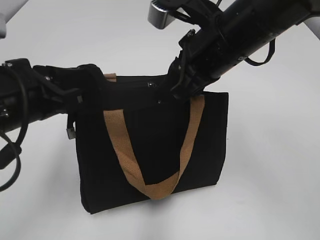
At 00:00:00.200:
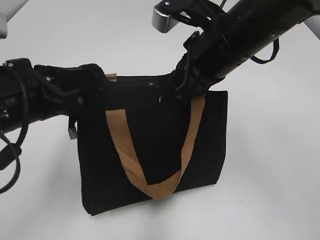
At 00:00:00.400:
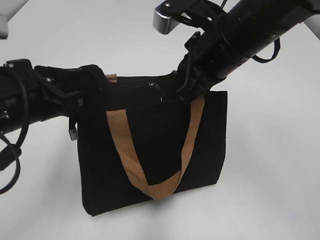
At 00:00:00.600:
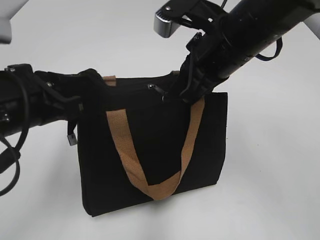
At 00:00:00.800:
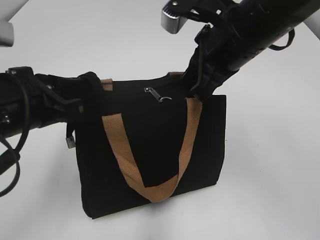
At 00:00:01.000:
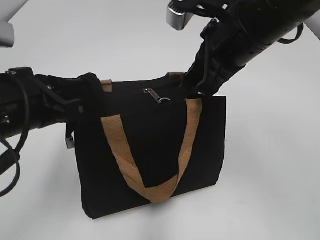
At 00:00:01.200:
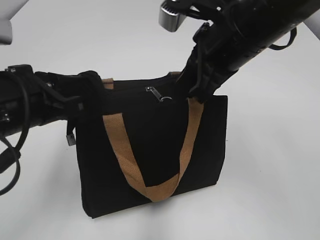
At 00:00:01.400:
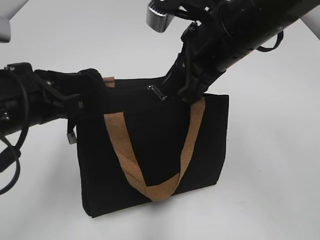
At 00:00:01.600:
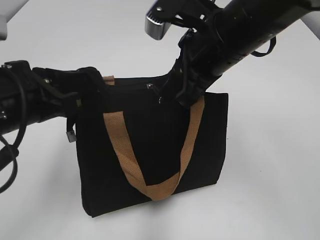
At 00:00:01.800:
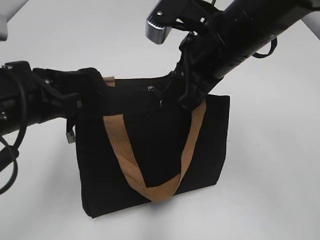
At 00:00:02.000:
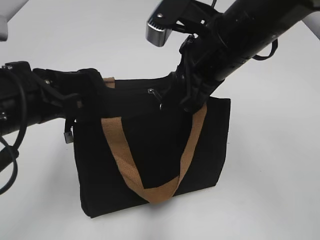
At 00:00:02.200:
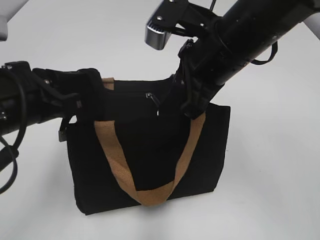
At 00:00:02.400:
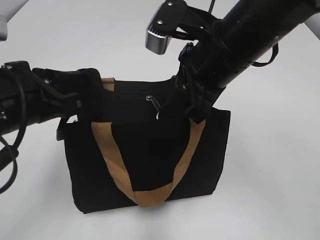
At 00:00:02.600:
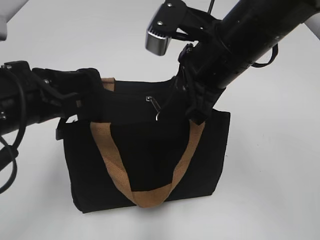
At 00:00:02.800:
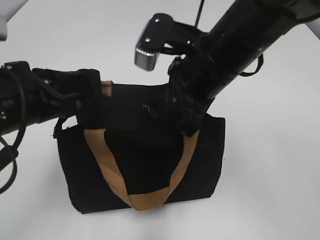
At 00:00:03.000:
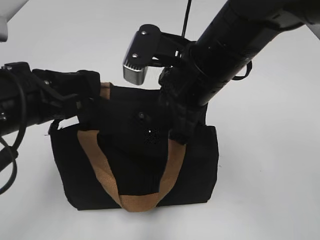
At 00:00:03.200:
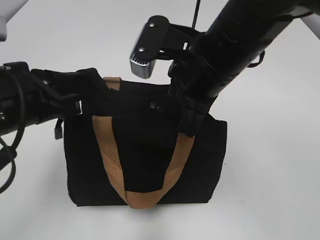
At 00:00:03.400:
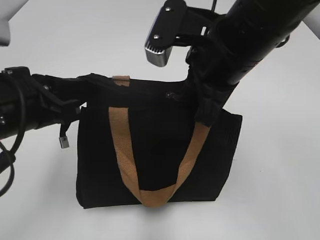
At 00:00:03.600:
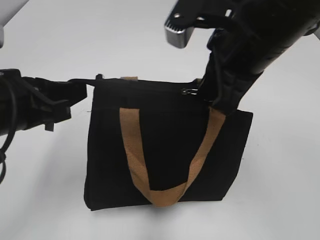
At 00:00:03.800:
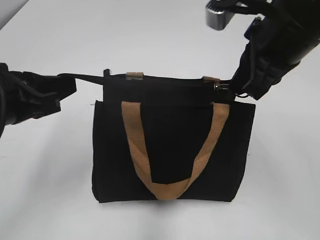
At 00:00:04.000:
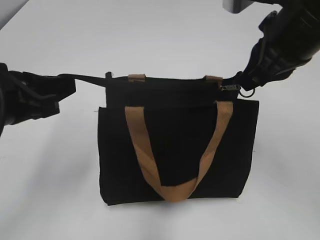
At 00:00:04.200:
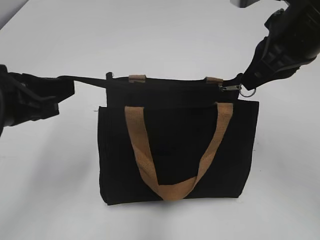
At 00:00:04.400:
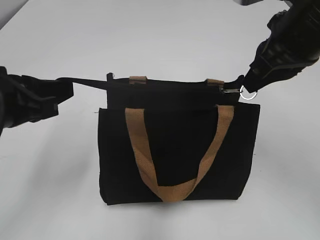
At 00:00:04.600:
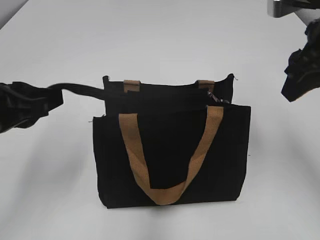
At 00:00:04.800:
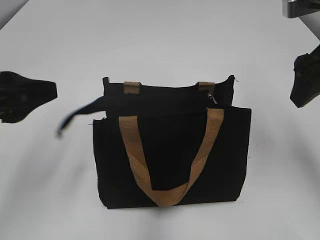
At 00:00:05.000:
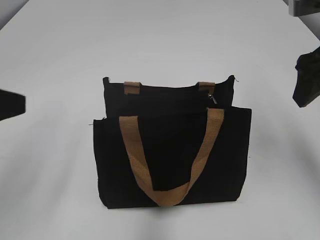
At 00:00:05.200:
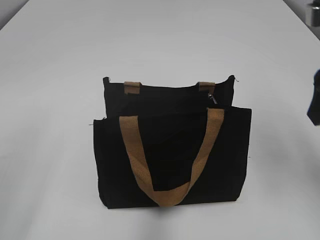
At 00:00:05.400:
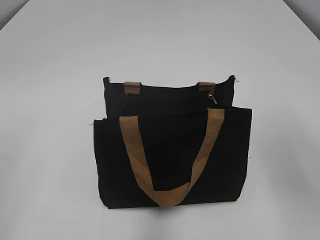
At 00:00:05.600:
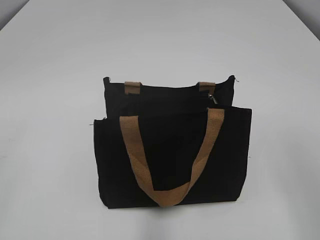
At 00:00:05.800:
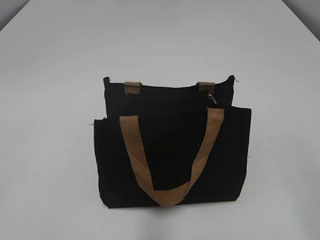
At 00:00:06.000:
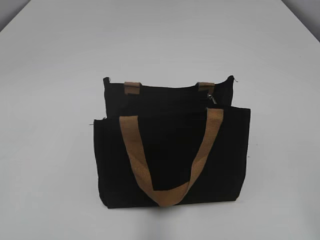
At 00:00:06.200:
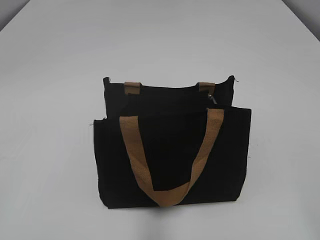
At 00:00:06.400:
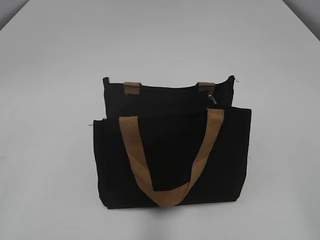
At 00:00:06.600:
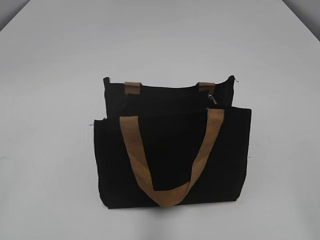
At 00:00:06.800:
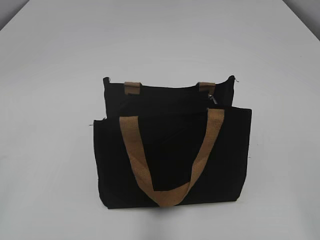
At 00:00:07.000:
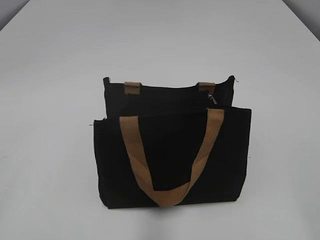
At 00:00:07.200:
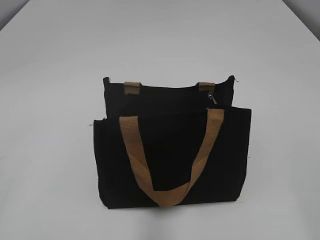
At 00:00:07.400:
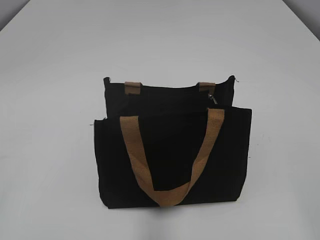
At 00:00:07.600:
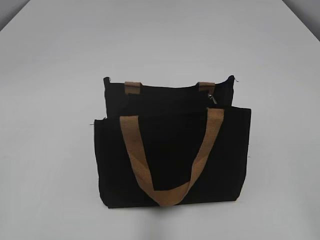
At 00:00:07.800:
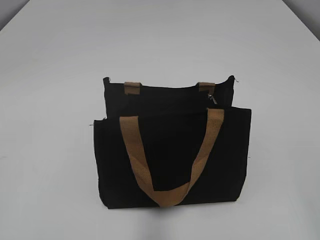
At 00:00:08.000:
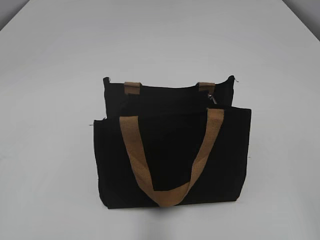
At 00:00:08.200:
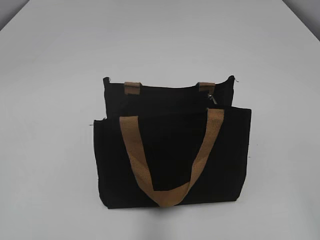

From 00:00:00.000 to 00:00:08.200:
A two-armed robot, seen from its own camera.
Step, from 00:00:00.000 to 00:00:04.600: Zip up the bag with your right hand.
From 00:00:00.000 to 00:00:01.600: There are only small adjustments of the grippers.
From 00:00:01.600 to 00:00:03.200: There are only small adjustments of the grippers.
From 00:00:03.200 to 00:00:05.000: The left gripper moves to the left, about 5 cm, and opens its fingers. The right gripper travels to the right by about 15 cm, and opens up.
From 00:00:05.000 to 00:00:06.600: The left gripper goes about 15 cm backward and to the left. Meanwhile the right gripper is displaced backward by approximately 30 cm.
